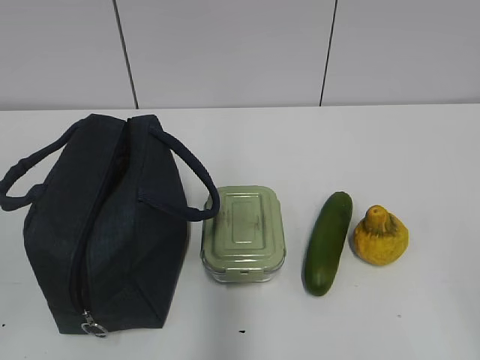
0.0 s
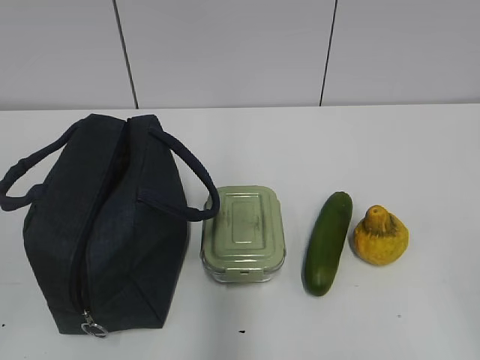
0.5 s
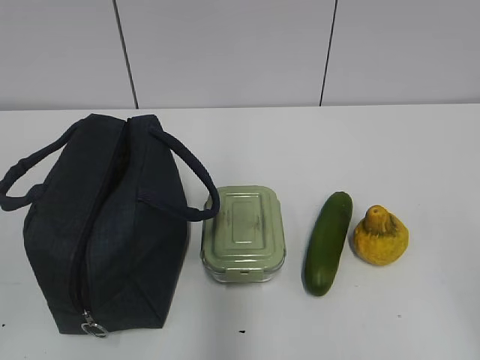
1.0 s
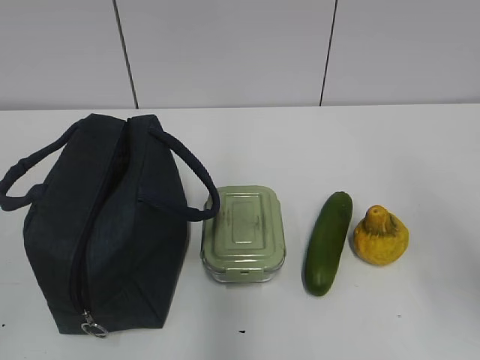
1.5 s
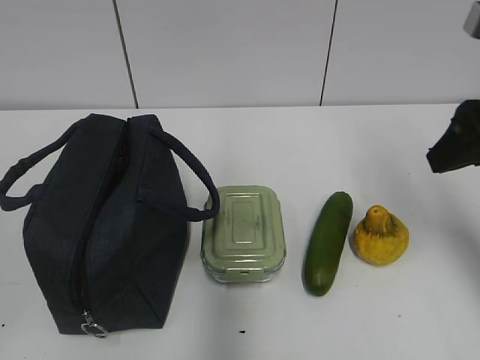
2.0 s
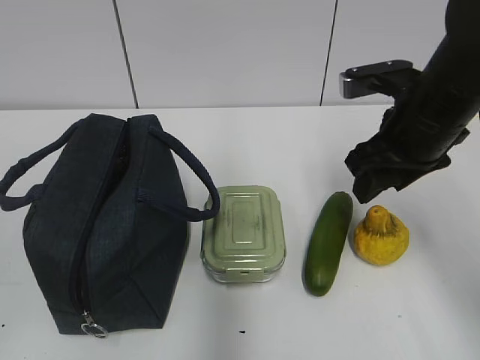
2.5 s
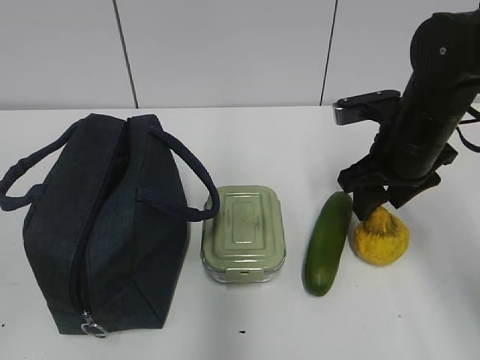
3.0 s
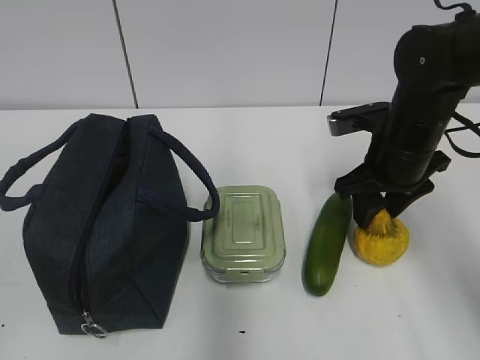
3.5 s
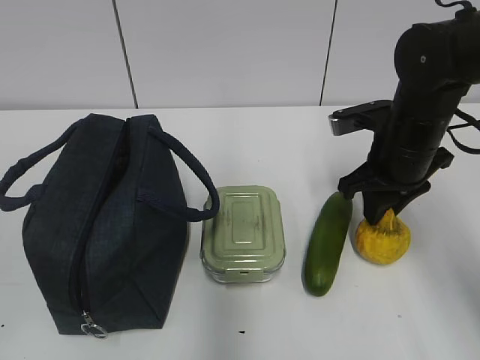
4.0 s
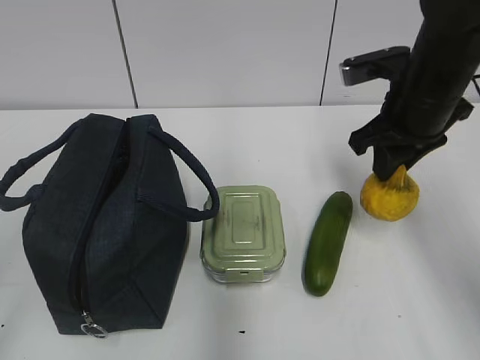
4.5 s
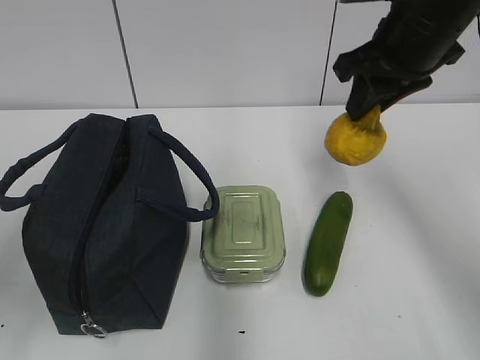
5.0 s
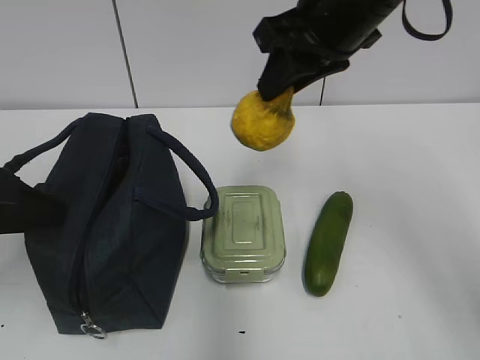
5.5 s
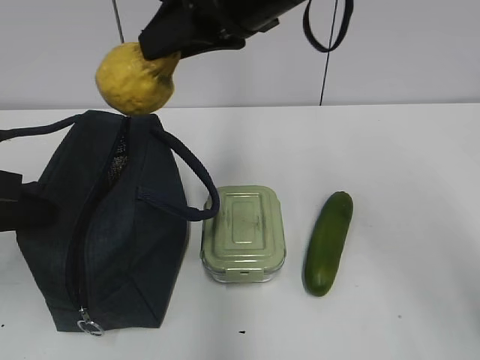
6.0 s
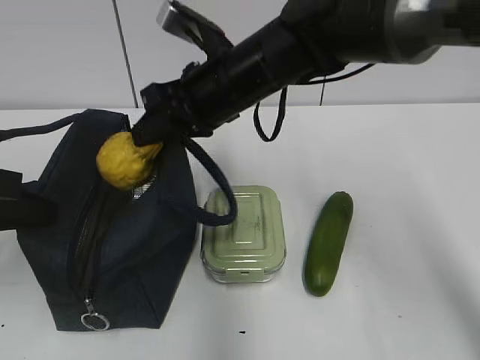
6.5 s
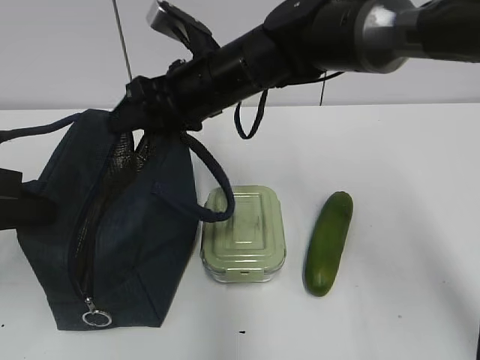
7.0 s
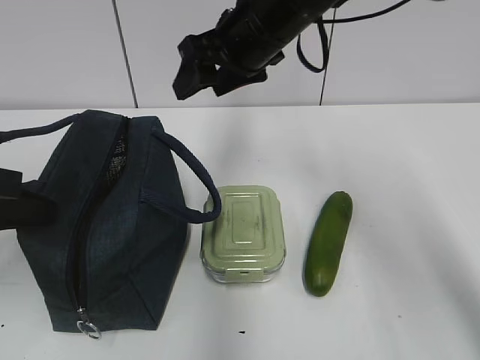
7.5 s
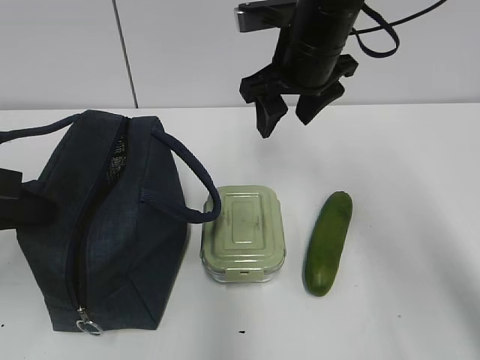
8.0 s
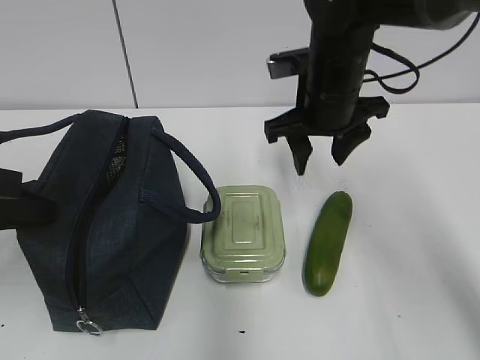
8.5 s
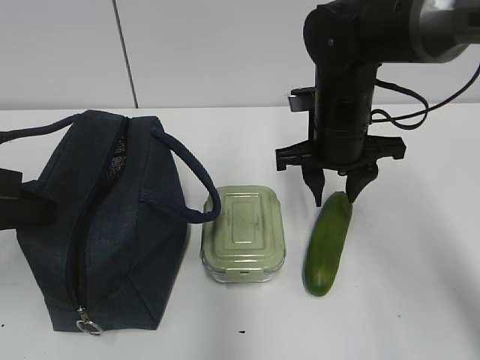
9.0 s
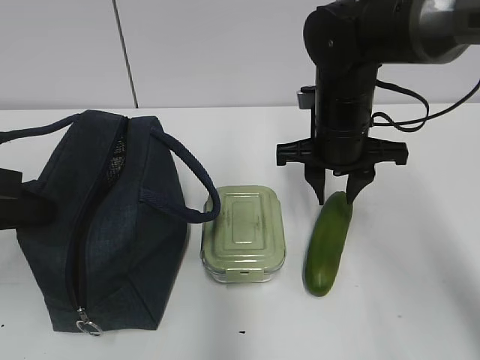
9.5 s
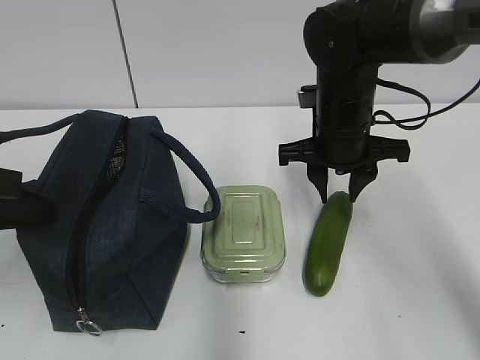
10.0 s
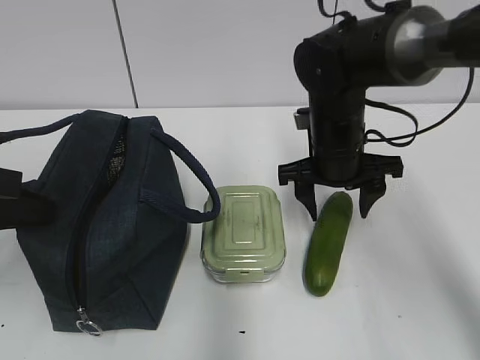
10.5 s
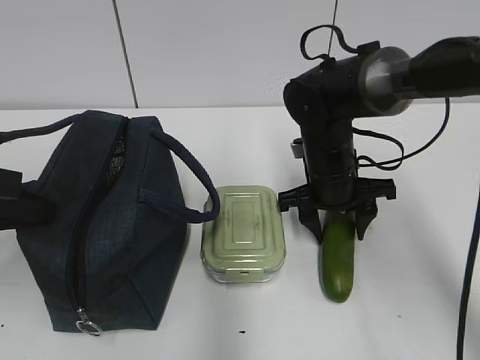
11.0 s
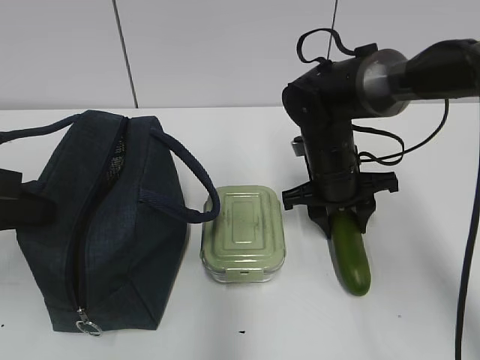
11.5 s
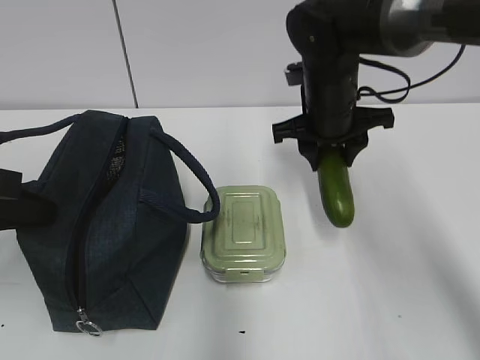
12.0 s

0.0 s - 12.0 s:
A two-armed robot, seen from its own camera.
Step, 0.0 s - 4.0 s: Grab the pear with your right hand.
Step, 4.5 s - 5.0 s: Grab the lunch bag with your left hand.
Step, 5.5 s - 7.0 s: Place it into the bag with your right hand.
Step, 7.5 s - 11.5 s: Grab the cucumber with your right hand.
2.0 s - 4.0 s: The right gripper goes roughly 15 cm downward, forward and to the left, and closes its fingers.
4.0 s - 6.0 s: The right gripper is displaced upward and to the left by some 25 cm; the left gripper moves forward, approximately 20 cm, and closes its fingers.
6.0 s - 8.0 s: The right gripper travels downward and forward by some 10 cm, and opens its fingers.
8.0 s - 10.0 s: The right gripper moves downward, about 10 cm, and closes its fingers.
10.0 s - 12.0 s: The right gripper moves about 5 cm downward and comes back.

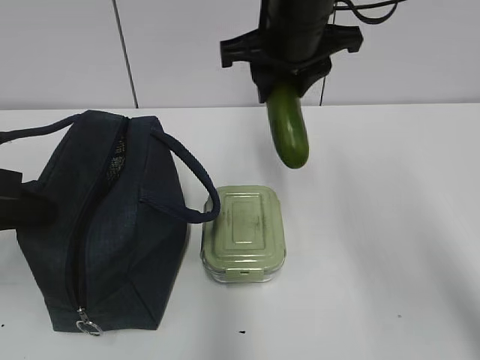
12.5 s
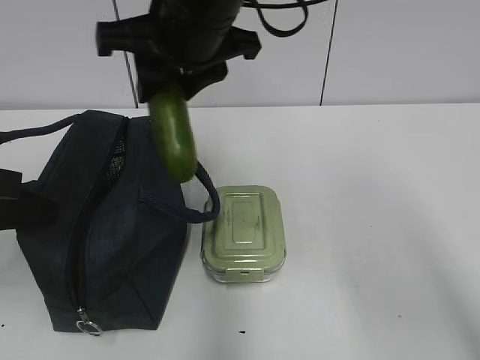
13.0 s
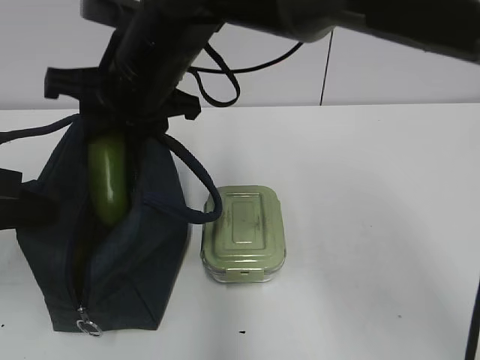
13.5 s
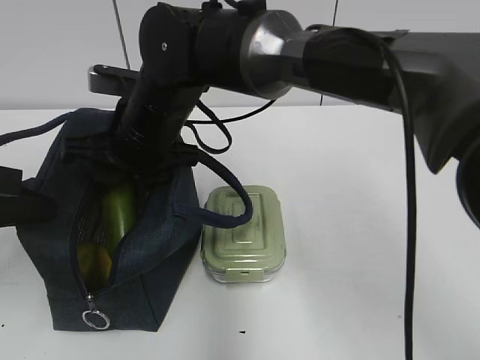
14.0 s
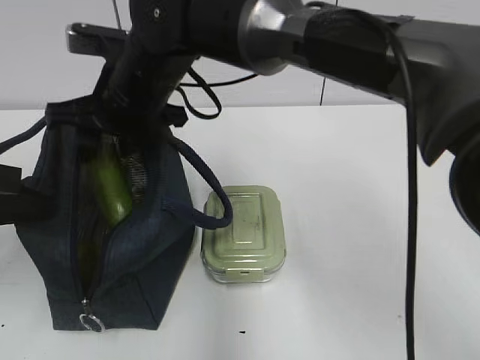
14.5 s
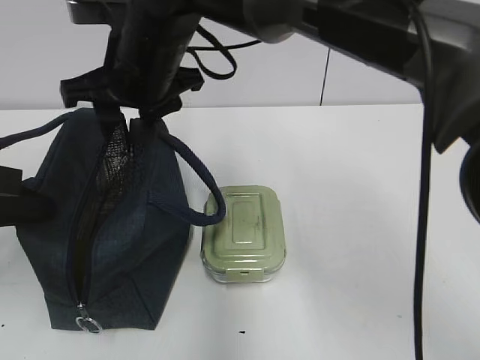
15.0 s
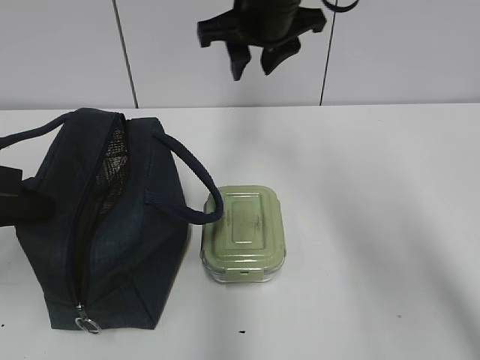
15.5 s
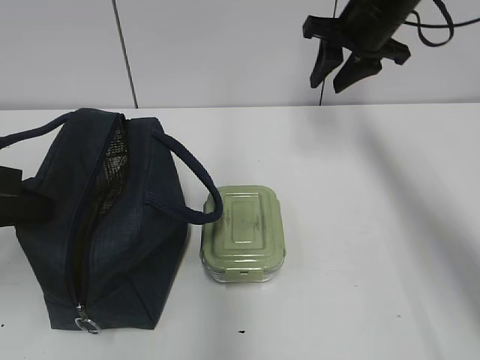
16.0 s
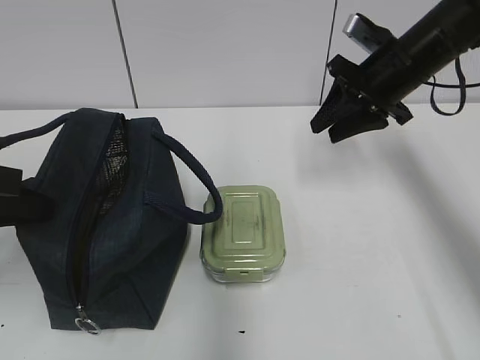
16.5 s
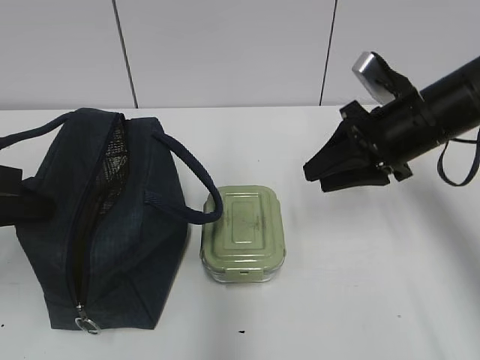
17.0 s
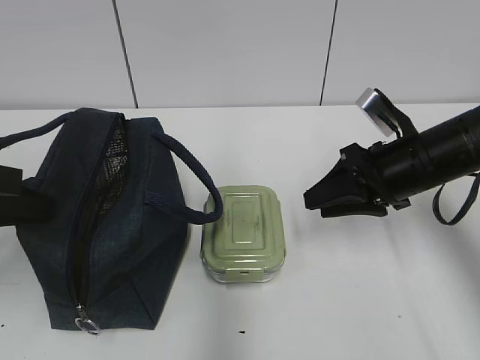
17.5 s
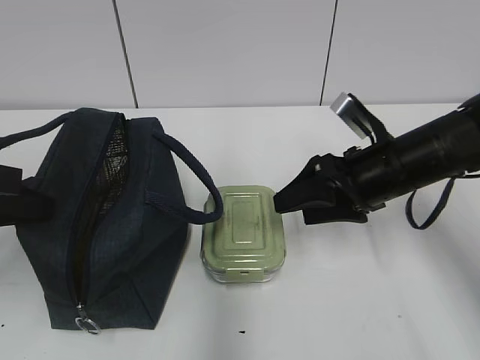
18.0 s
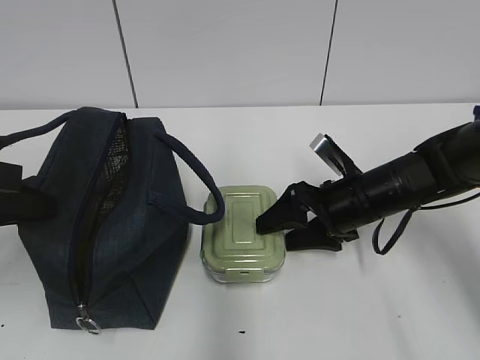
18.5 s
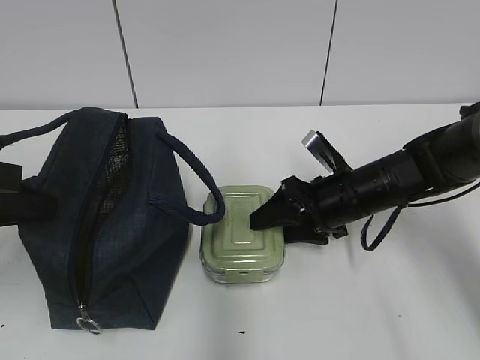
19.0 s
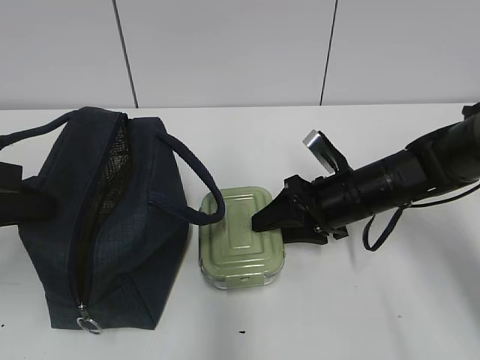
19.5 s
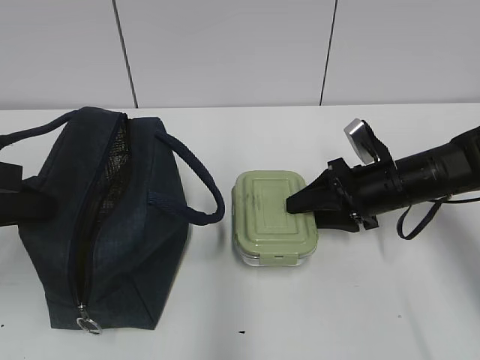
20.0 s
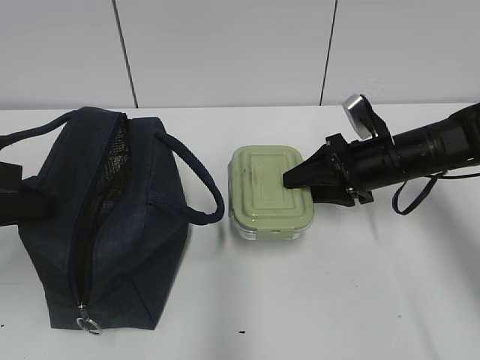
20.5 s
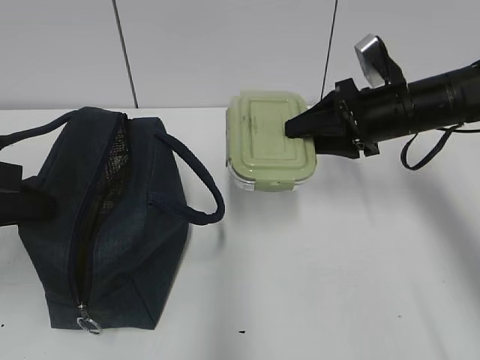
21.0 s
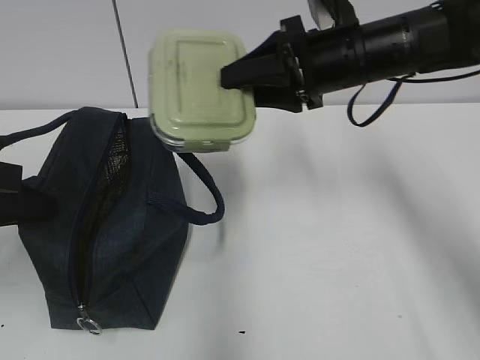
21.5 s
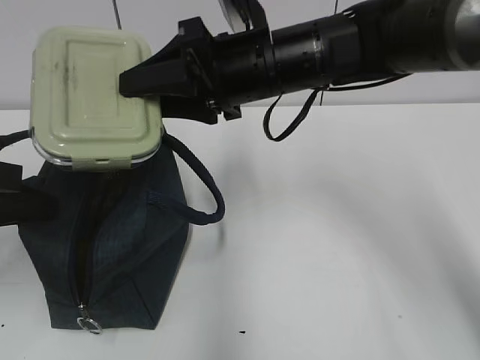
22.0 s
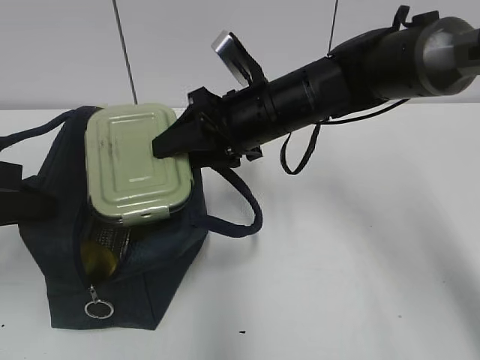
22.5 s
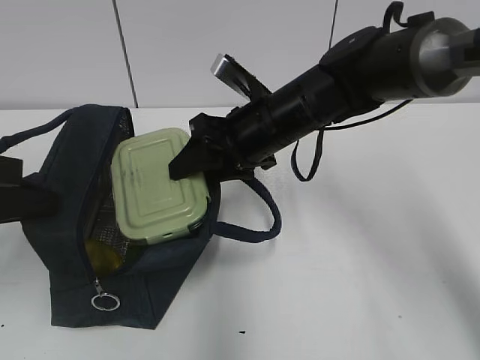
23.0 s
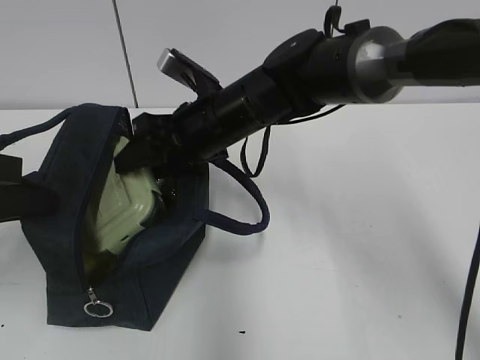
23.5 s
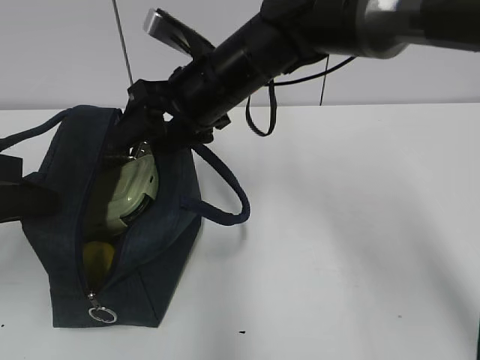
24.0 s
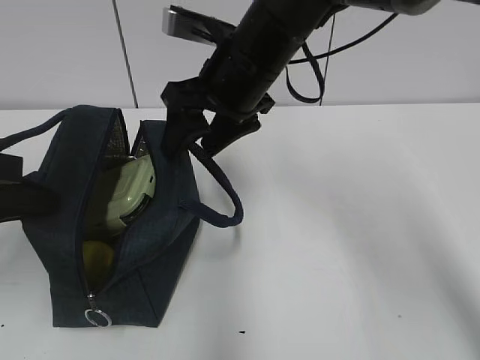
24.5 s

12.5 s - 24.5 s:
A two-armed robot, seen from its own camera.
Step, 12.5 s - 14.5 s: Place it into the bag with your right hand.
Step, 15.0 s - 19.5 s: Grab the lunch box with your right hand.
12.5 s - 14.5 s: The right gripper travels to the left and downward by approximately 15 cm.
14.5 s - 16.5 s: The right gripper goes some 30 cm to the right.
16.5 s - 18.5 s: The right gripper heads downward, backward and to the left, covering approximately 15 cm, and opens up.
18.5 s - 20.5 s: The right gripper shifts by about 5 cm.
20.5 s - 22.5 s: The right gripper travels to the left and upward by some 15 cm.
22.5 s - 24.5 s: The right gripper travels upward by about 5 cm.

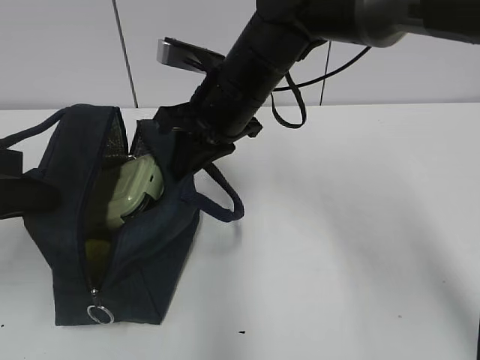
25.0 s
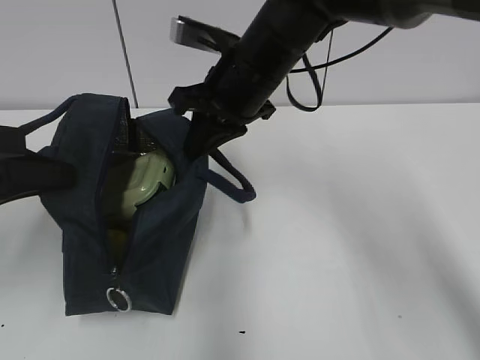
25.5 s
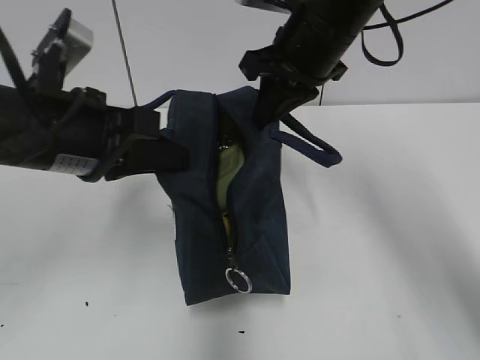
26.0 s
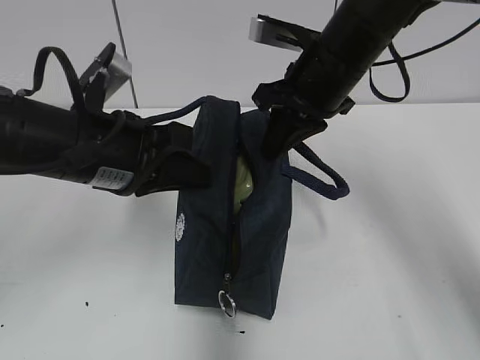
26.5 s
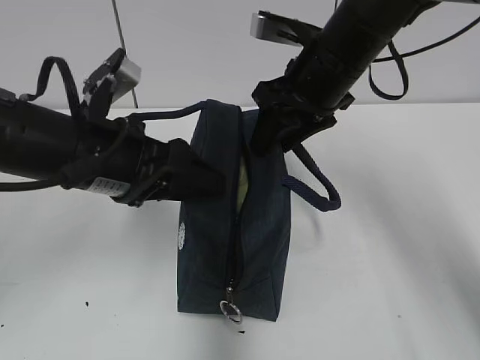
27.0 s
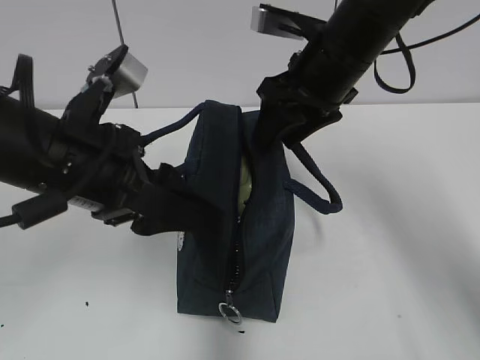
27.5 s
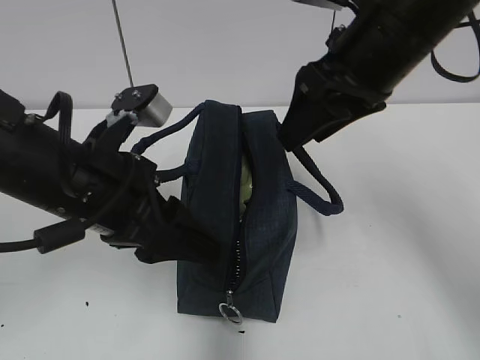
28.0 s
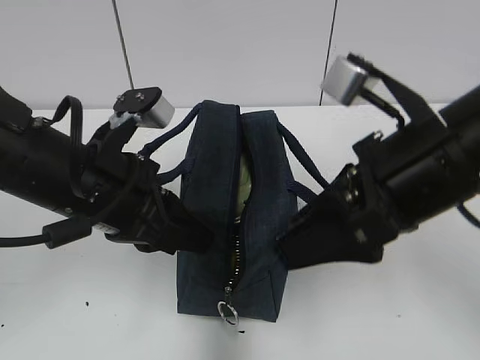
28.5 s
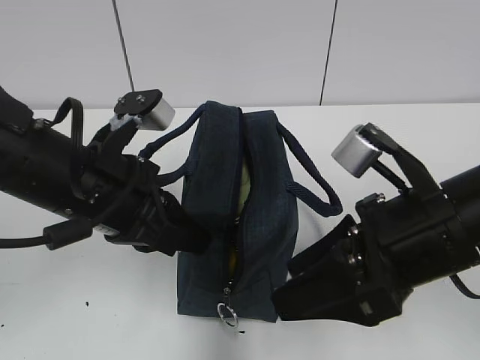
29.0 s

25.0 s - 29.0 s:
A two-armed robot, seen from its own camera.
Step, 25.5 s - 27.0 s: Move the lunch bag to the right.
25.0 s - 27.0 s: The left gripper heads to the right and forward, covering about 15 cm, and opens its fingers. The right gripper shifts approximately 10 cm to the right, and opens up.
27.0 s - 29.0 s: The right gripper heads backward, covering roughly 20 cm; the left gripper closes up.
